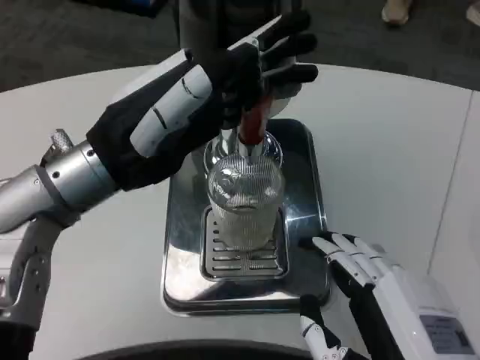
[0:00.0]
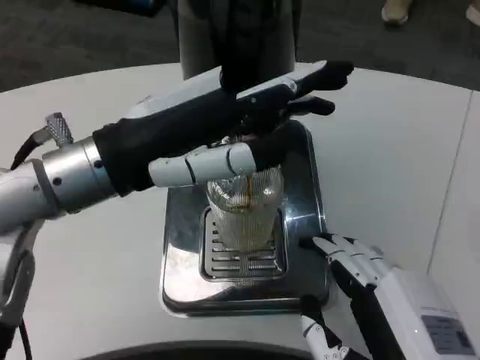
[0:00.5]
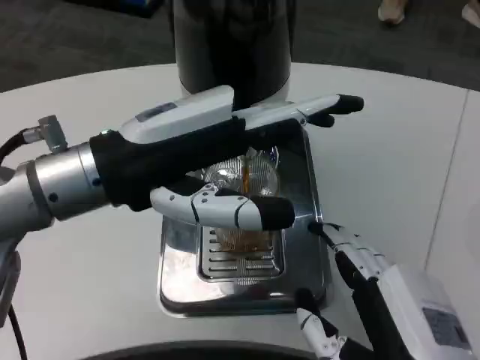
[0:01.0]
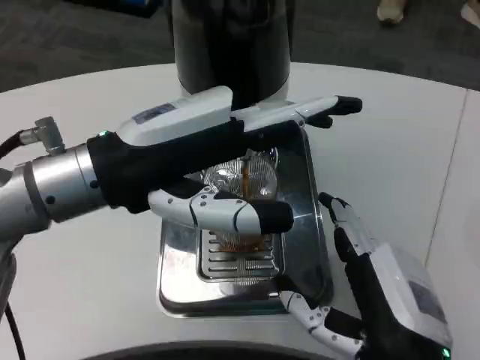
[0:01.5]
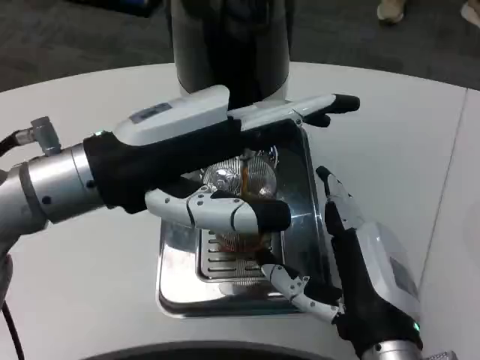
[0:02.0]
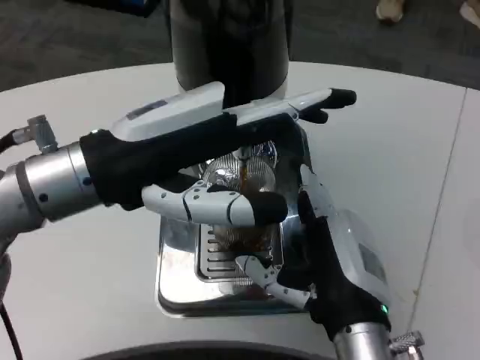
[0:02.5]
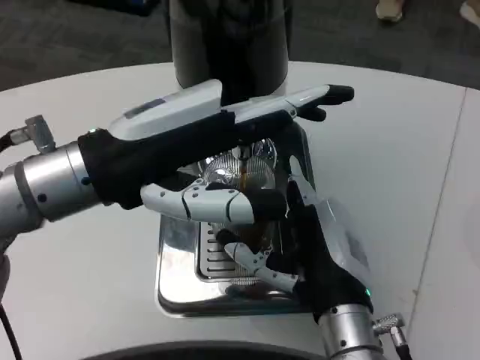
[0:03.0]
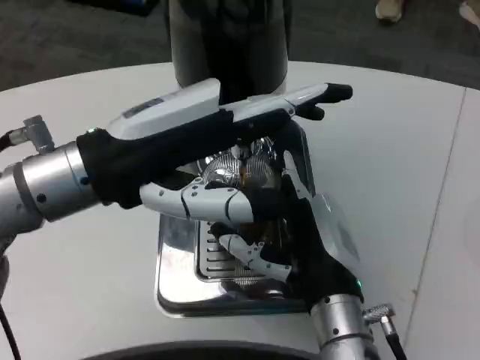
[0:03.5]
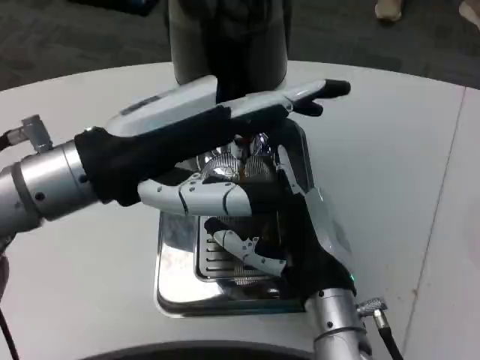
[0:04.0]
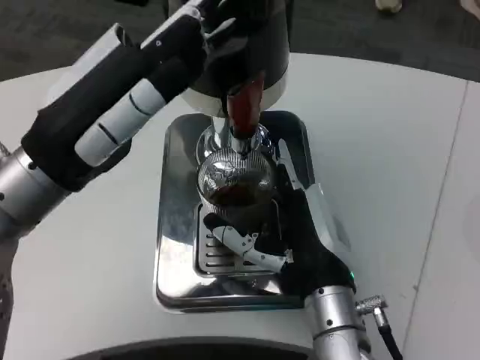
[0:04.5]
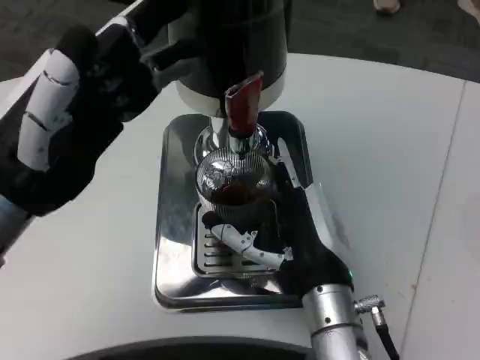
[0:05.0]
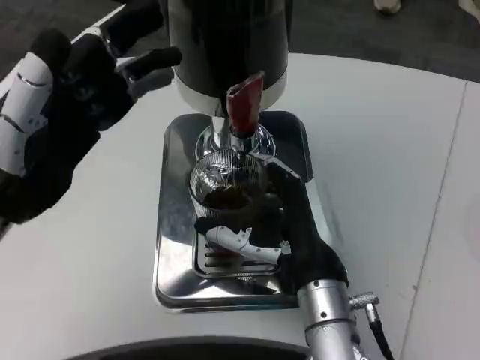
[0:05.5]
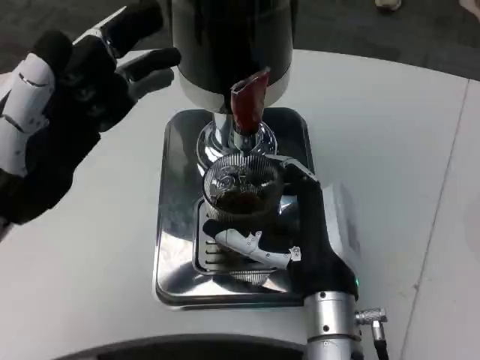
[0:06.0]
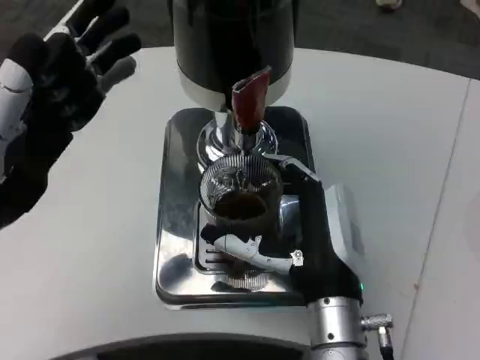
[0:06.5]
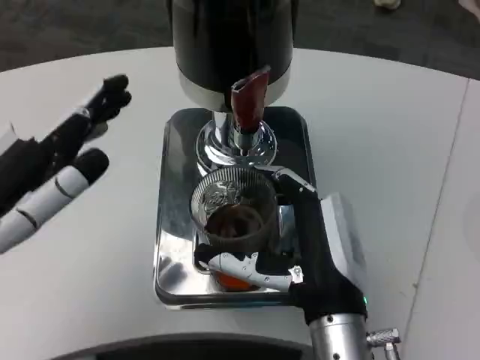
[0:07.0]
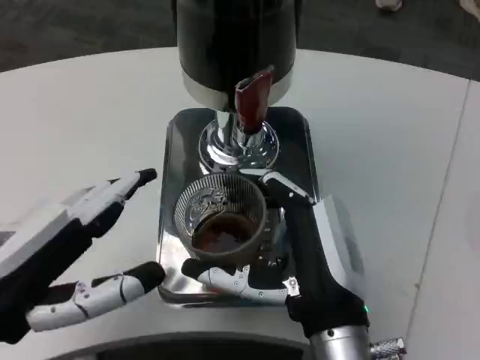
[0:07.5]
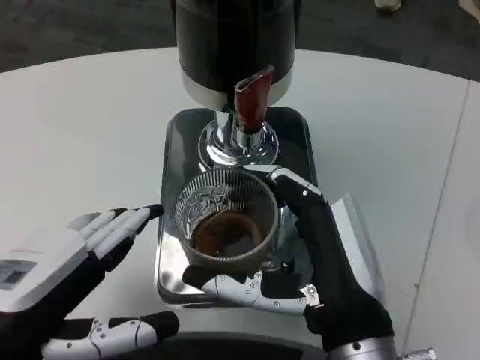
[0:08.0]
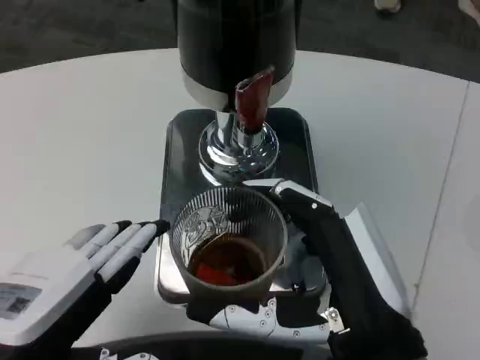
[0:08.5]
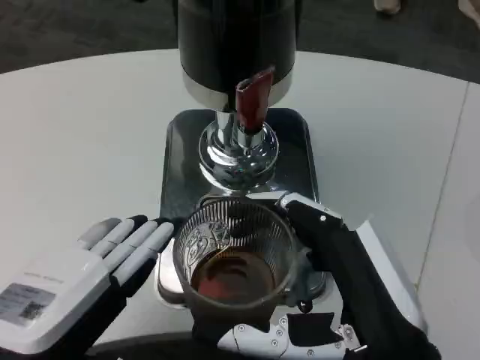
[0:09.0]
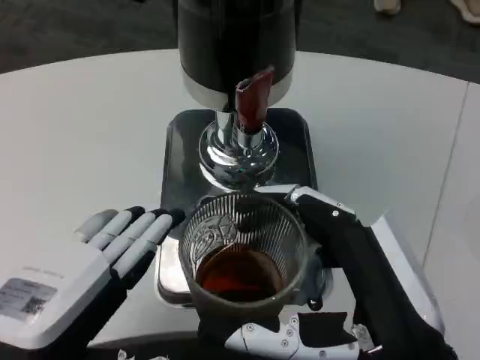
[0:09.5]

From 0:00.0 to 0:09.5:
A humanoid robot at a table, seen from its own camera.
Task of the whole recording: Grasp the cup under the faucet to collect the drink, then remove the cup.
From 0:00.0 to 0:02.0: The right hand is displaced forward by some 10 cm.
From 0:02.0 to 0:04.0: The right hand goes about 5 cm forward.
From 0:04.0 to 0:05.5: The left hand heads to the left, covering about 5 cm.
From 0:05.5 to 0:07.5: Both hands move backward, approximately 5 cm.
From 0:07.5 to 0:09.5: The right hand goes some 10 cm backward and upward; the left hand ends up roughly 5 cm from where it was.

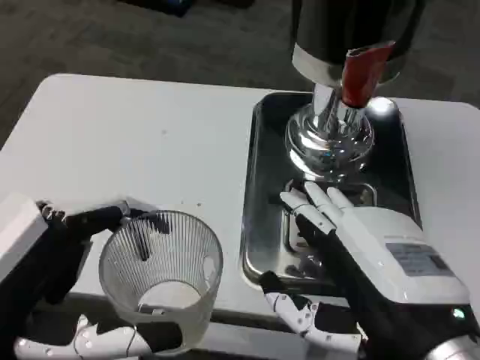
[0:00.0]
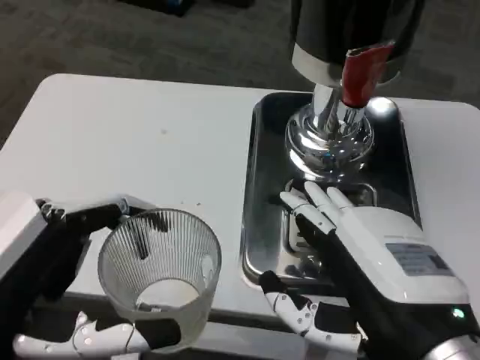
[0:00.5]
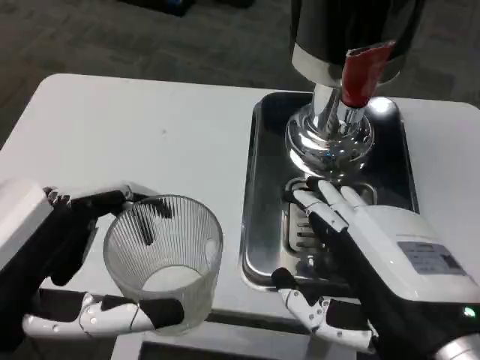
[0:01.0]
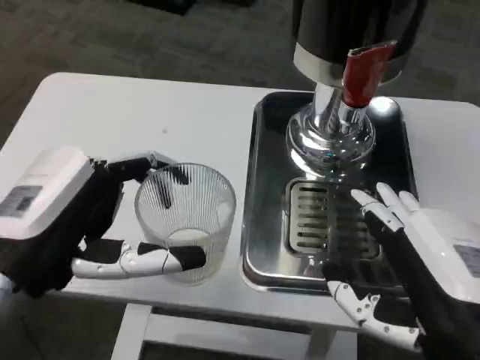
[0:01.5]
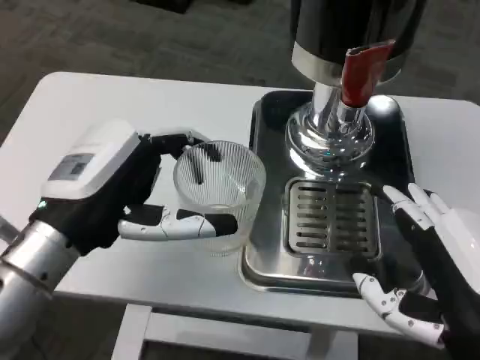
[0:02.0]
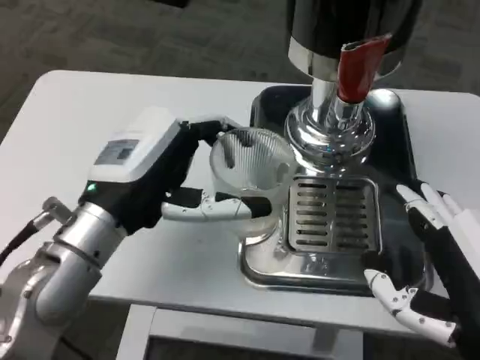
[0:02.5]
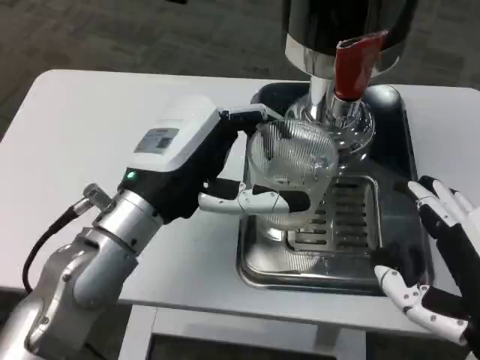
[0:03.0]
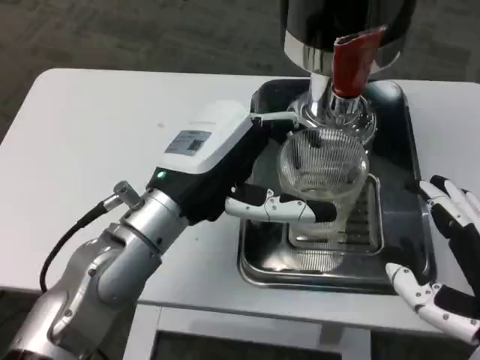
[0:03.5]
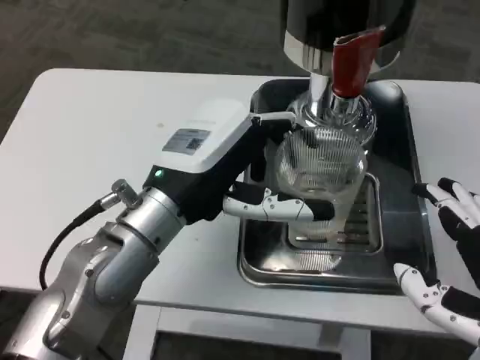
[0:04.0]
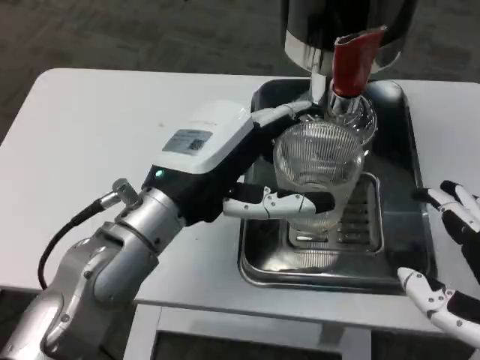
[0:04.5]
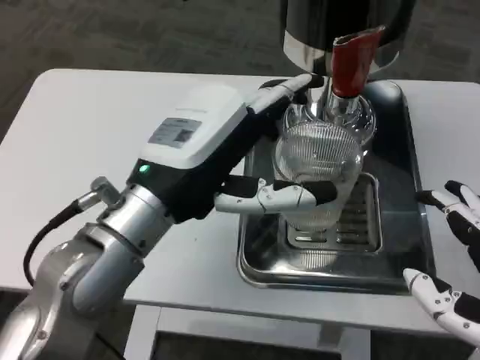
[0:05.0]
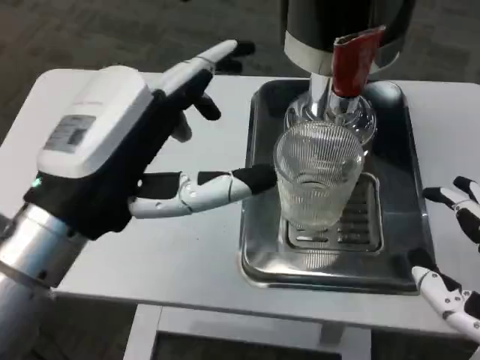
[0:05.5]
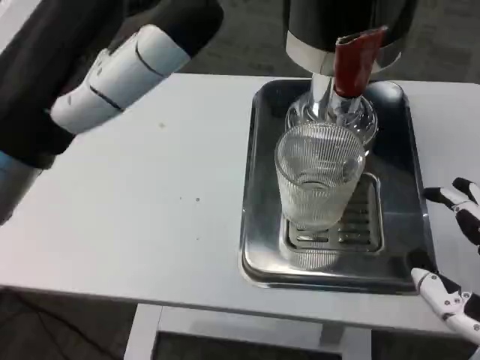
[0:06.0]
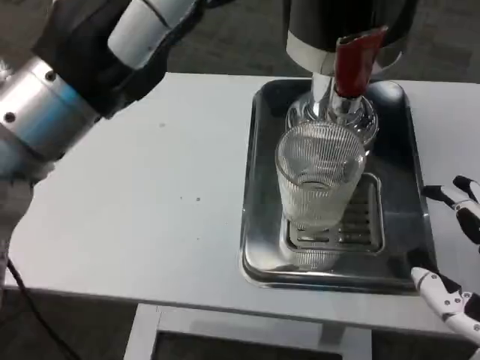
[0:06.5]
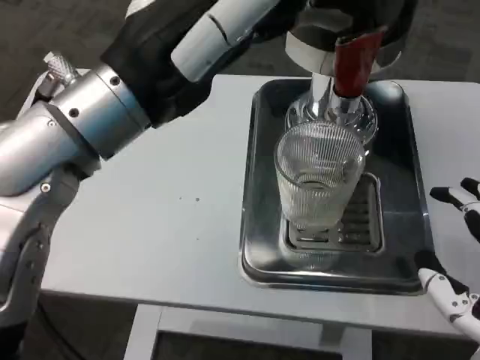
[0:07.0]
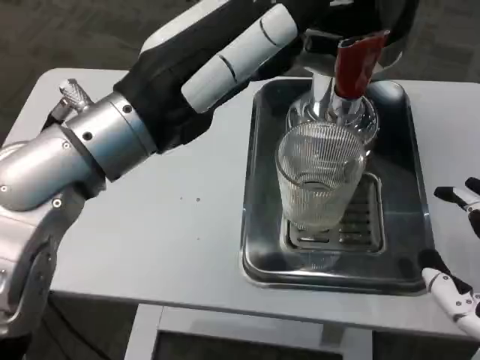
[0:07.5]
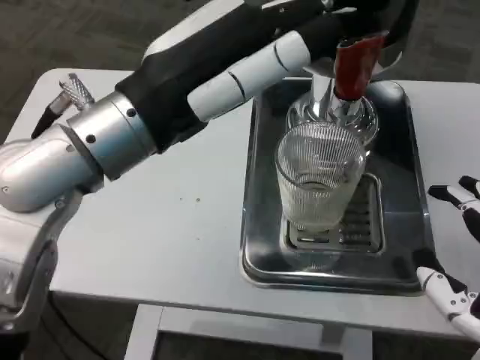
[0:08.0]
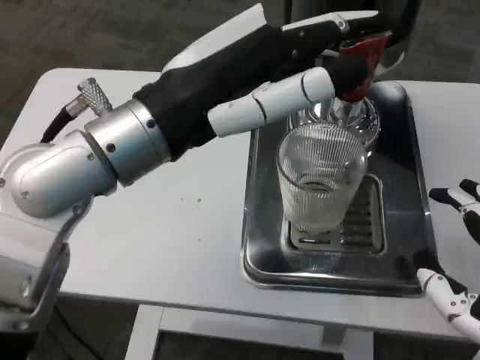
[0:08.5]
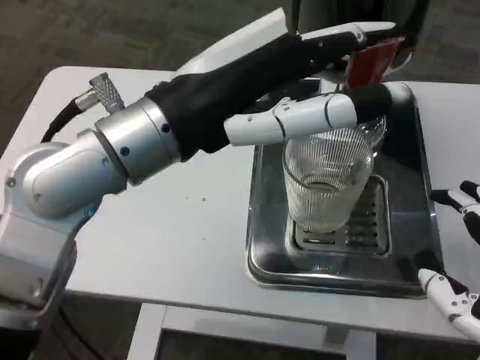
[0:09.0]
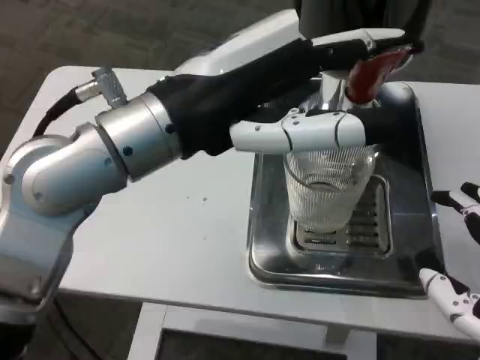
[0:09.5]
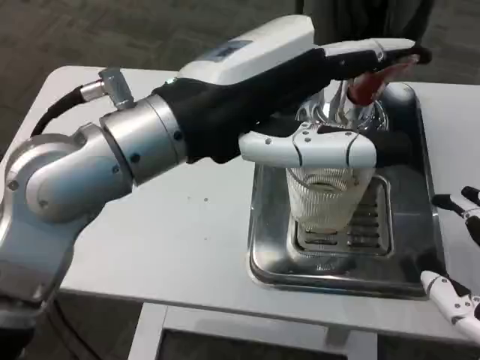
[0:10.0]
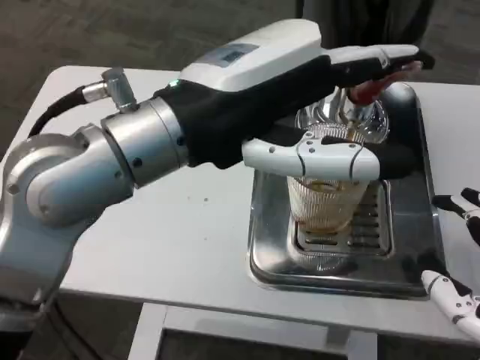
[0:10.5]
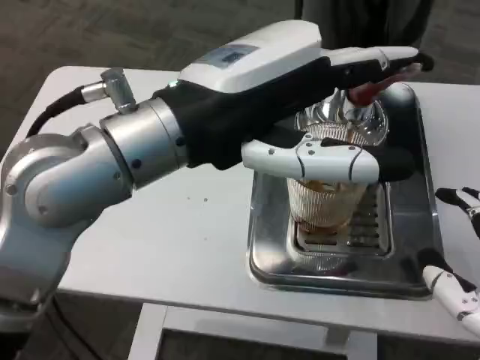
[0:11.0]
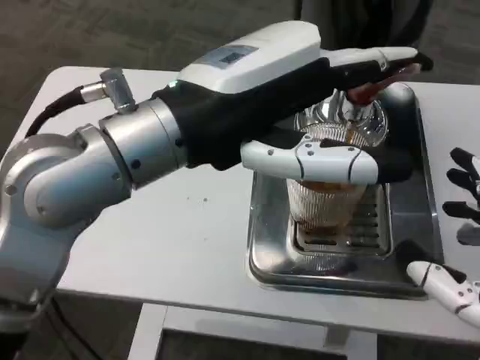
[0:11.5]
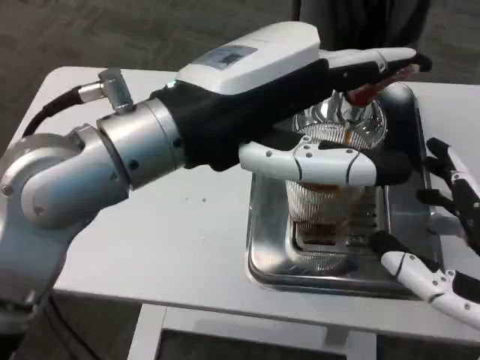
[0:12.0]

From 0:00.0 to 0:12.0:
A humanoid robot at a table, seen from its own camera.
Task of the whole recording: Grasp the cup under the faucet to collect the drink, then remove the cup.
From 0:00.0 to 0:02.0: The left hand is displaced forward by roughly 10 cm.
From 0:02.0 to 0:04.0: The left hand travels to the right by some 10 cm.
From 0:04.0 to 0:06.0: The left hand goes roughly 15 cm upward, backward and to the left.
From 0:06.0 to 0:08.0: The left hand moves forward, roughly 5 cm.

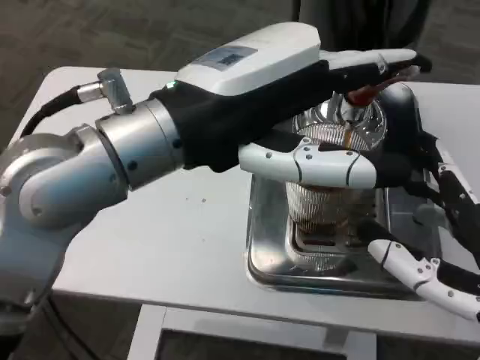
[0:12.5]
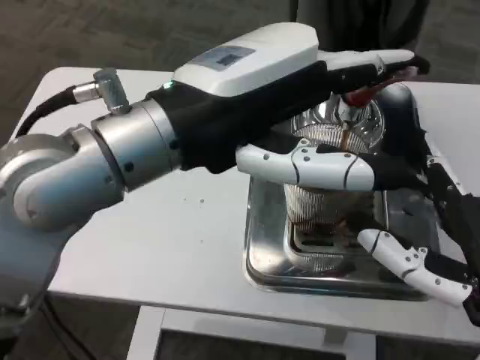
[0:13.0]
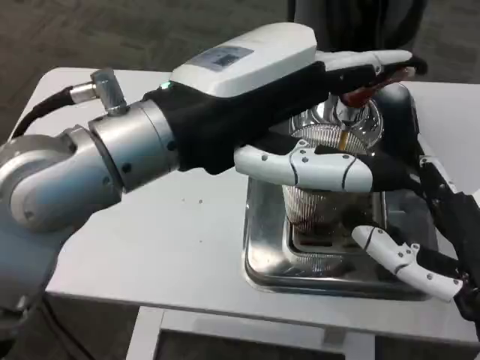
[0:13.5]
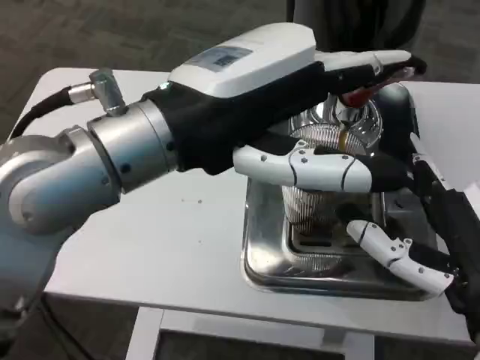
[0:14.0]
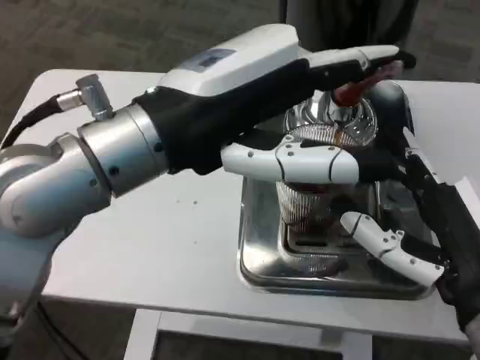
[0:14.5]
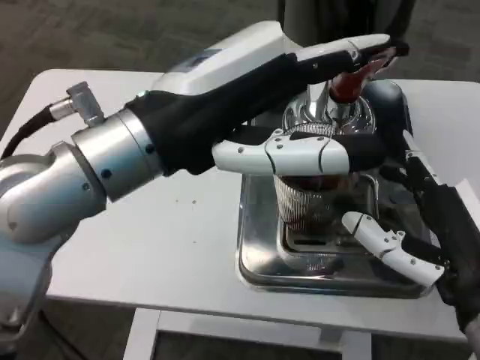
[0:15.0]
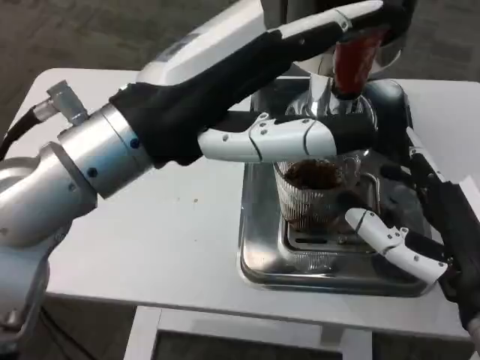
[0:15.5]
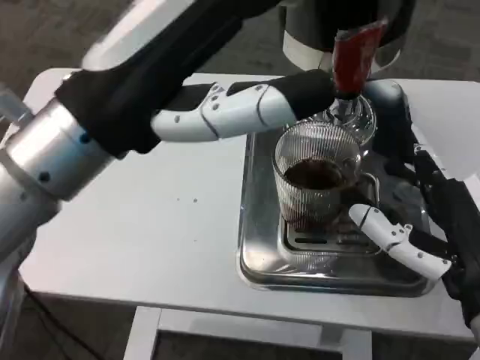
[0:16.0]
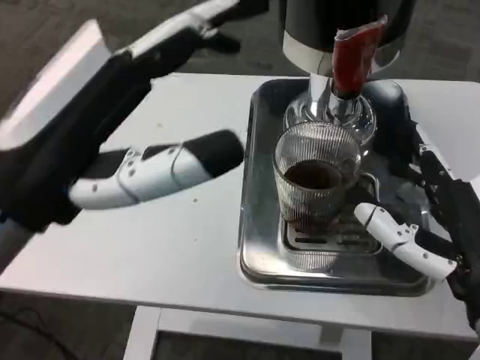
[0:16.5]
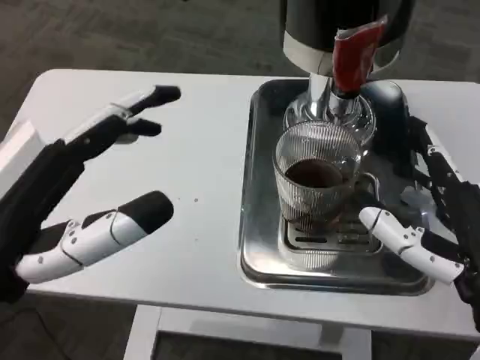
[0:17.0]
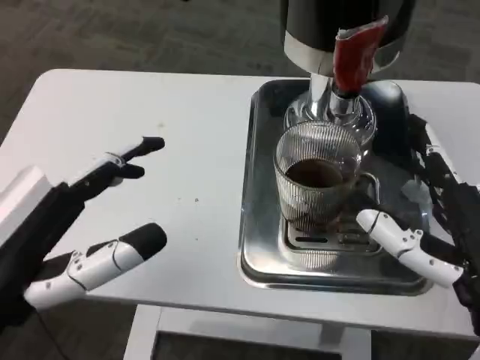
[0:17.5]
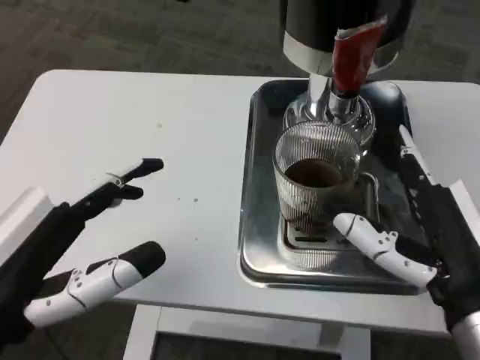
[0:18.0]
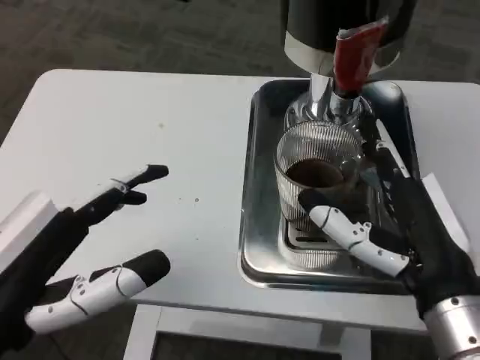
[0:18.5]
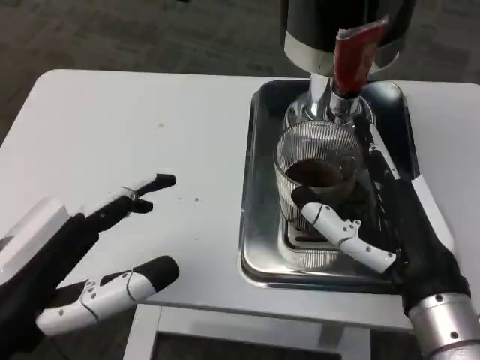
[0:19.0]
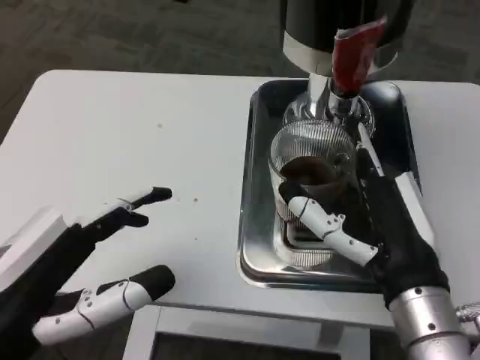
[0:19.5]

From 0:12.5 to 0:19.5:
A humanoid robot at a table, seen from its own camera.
Task of the whole recording: Grasp the cup under the faucet to collect the drink, then remove the cup.
From 0:16.0 to 0:17.5: The left hand shifts approximately 15 cm downward, to the left and backward.
From 0:17.5 to 0:19.5: The right hand moves to the left, approximately 5 cm.
